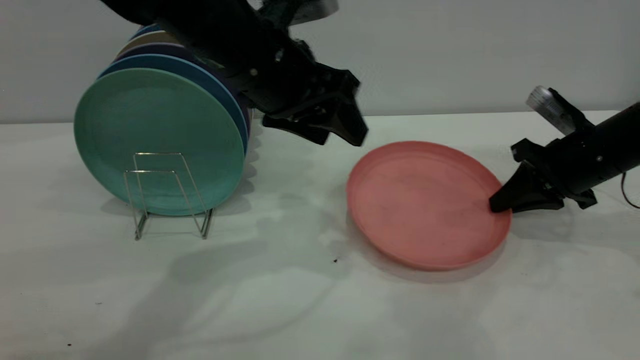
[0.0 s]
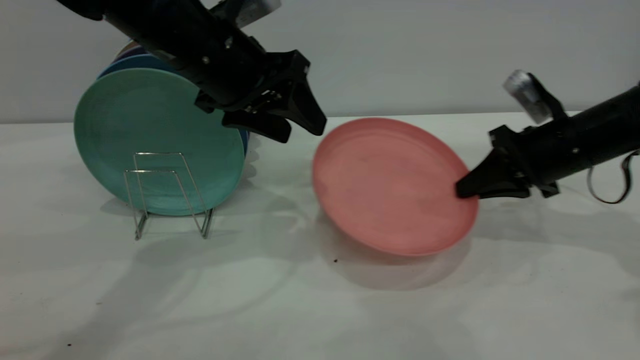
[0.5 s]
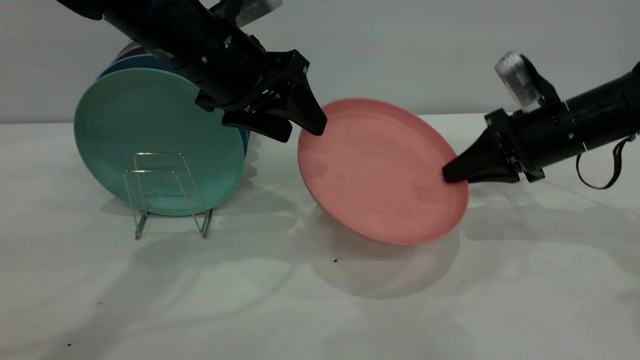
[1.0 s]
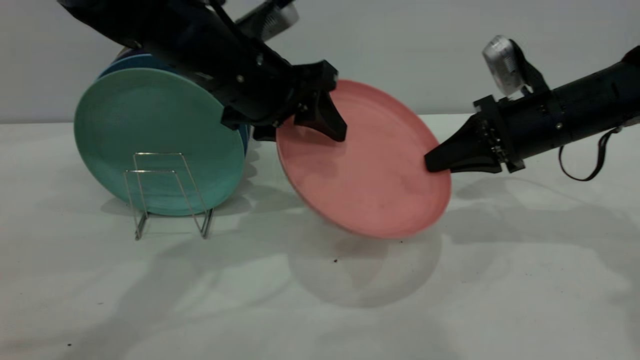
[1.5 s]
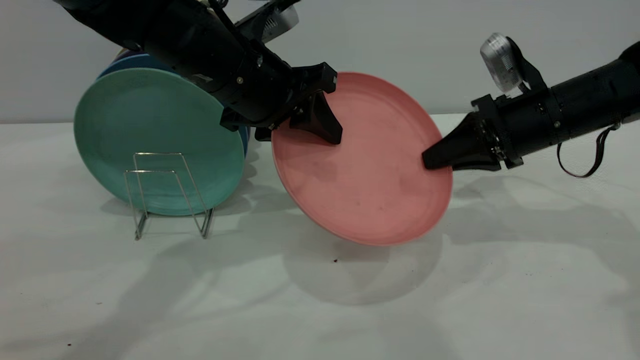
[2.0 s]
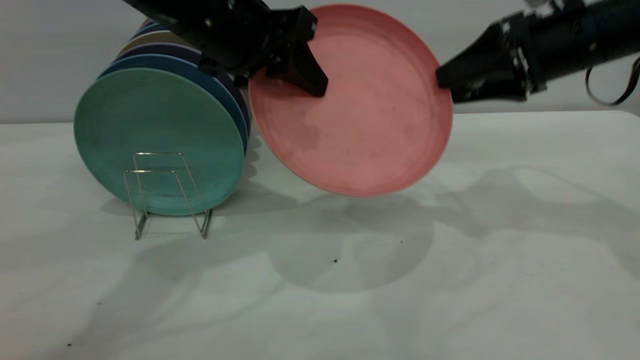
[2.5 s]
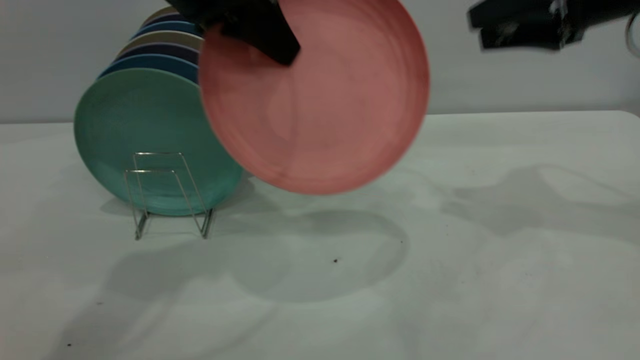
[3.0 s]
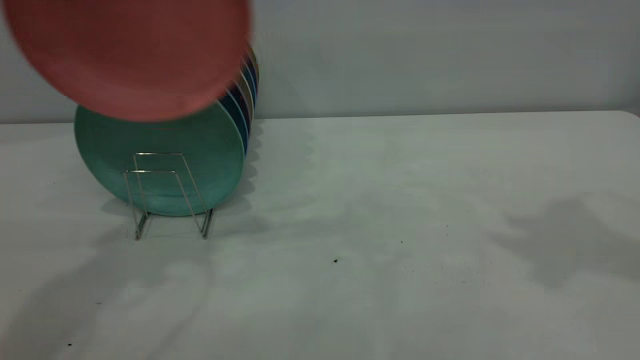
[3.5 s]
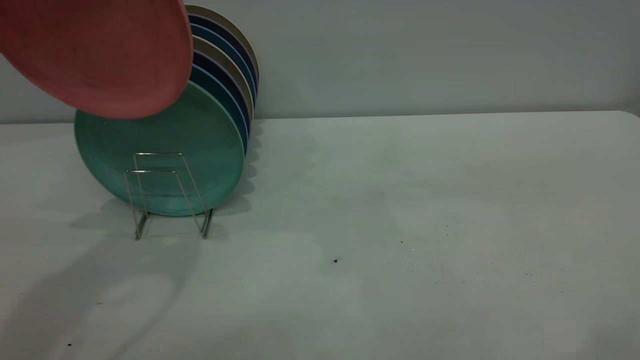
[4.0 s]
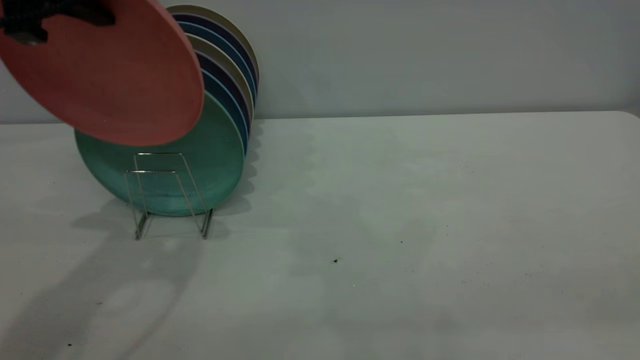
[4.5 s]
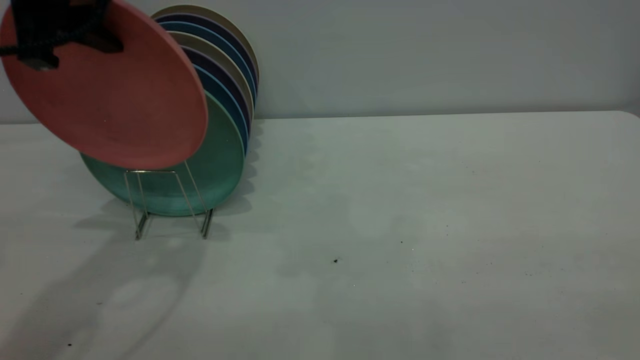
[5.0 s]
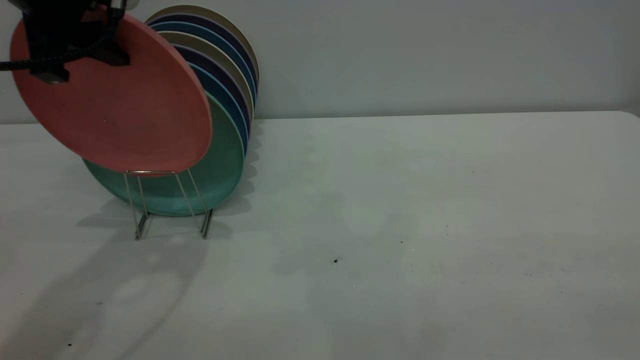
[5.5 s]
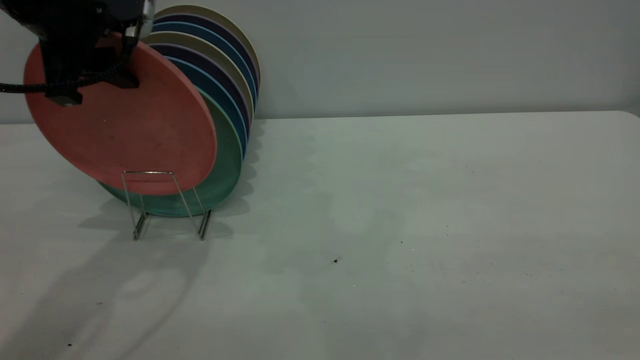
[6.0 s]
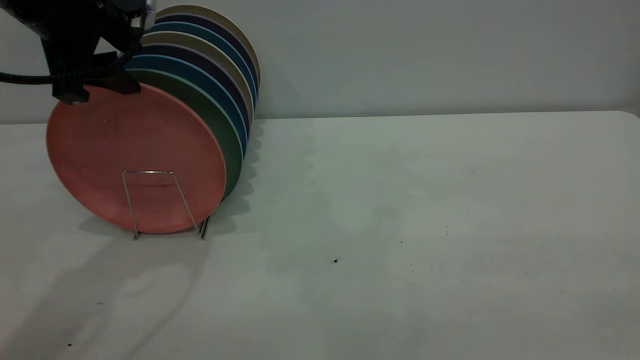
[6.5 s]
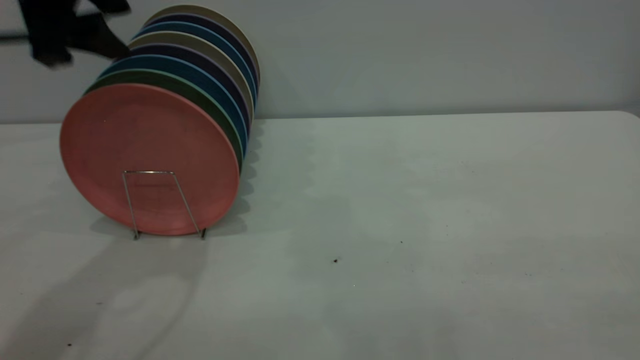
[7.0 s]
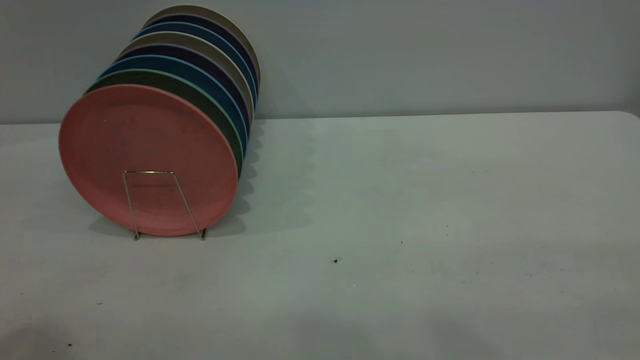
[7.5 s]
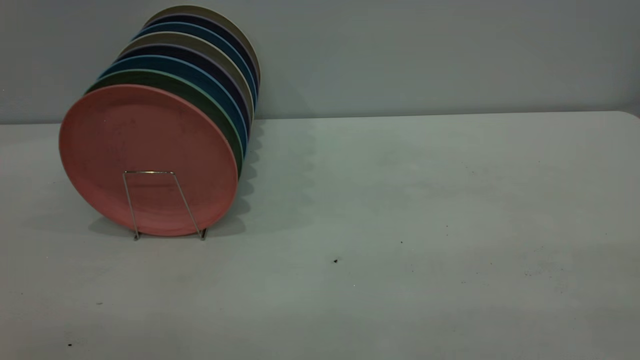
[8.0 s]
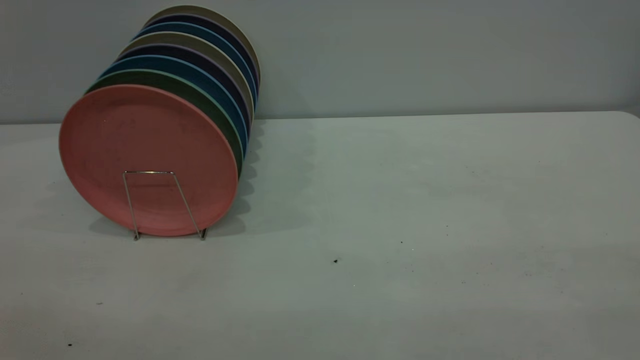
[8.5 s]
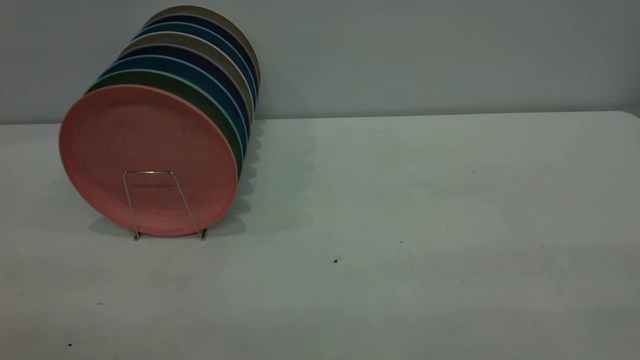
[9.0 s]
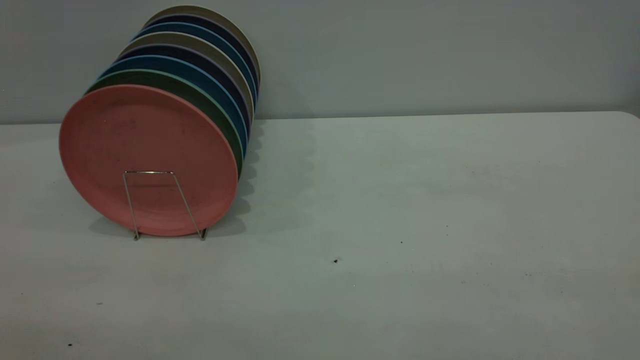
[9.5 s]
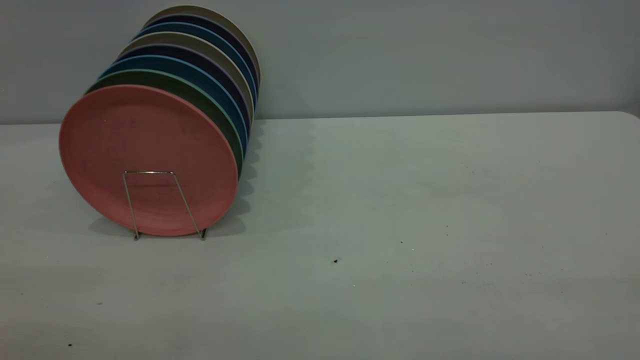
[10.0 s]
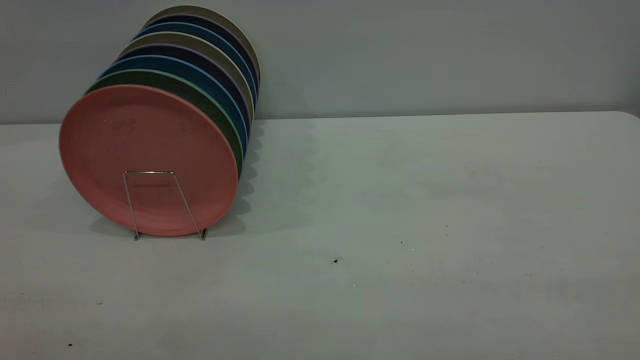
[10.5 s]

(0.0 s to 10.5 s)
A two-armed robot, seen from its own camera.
Task of the whole recording: the right gripper grasp the pink plate, the right gripper pass the pink plate to the left gripper, and the left gripper place the pink plate on the plate rack.
Step, 0.5 s - 2.5 s: Pass the plate from the right gripper to the left gripper.
Step, 3.0 s - 7.0 s: Place the plate on the shelf.
0.0 s - 2.0 s: The right gripper goes some 5 cm to the left. Meanwhile the left gripper closes up.
2.0 s - 4.0 s: The right gripper heads upward and backward, covering roughly 40 cm, and opens and closes again; the left gripper goes roughly 25 cm upward and to the left.
4.0 s - 6.5 s: The left gripper travels downward by roughly 10 cm, and opens.
6.5 s - 8.5 s: The left gripper heads backward, covering roughly 35 cm.

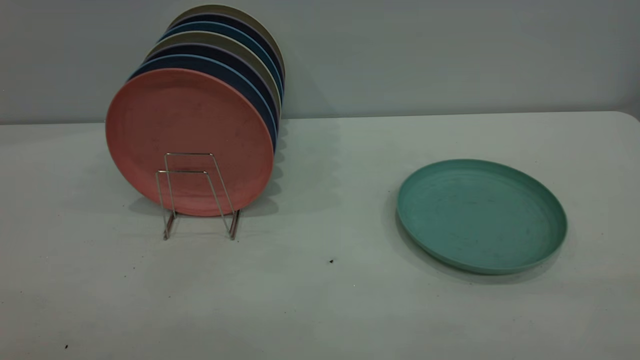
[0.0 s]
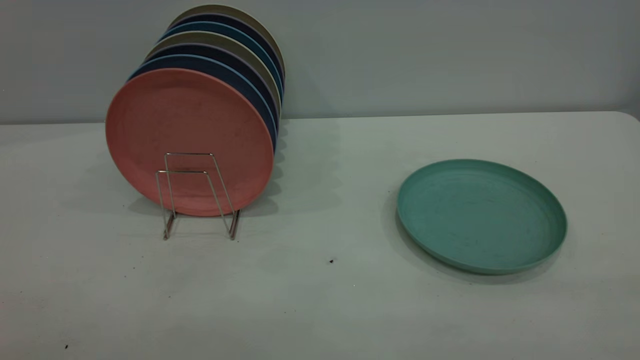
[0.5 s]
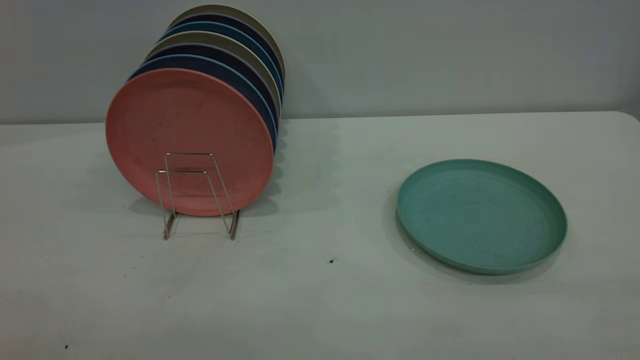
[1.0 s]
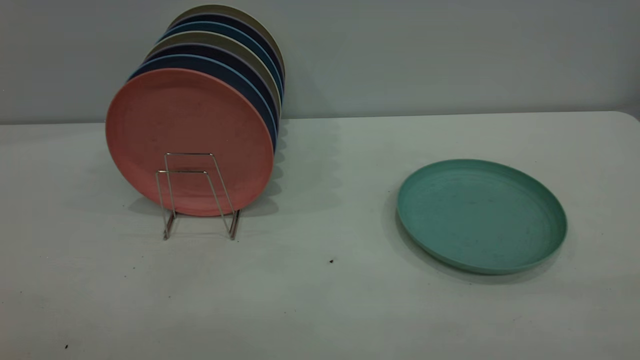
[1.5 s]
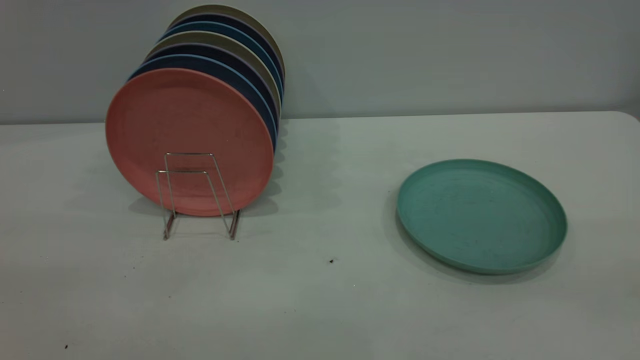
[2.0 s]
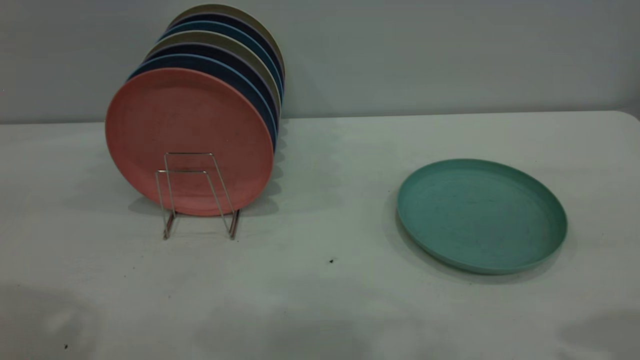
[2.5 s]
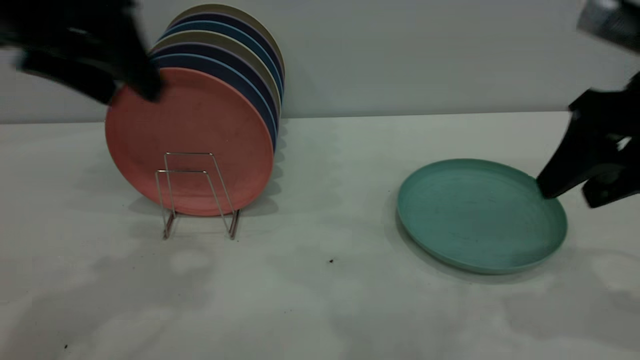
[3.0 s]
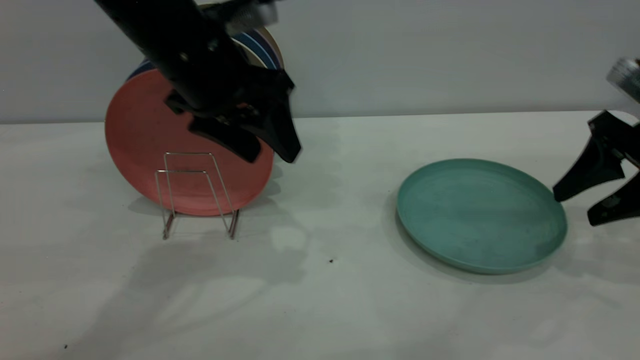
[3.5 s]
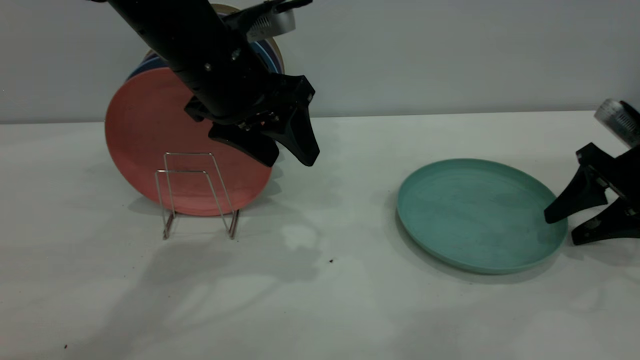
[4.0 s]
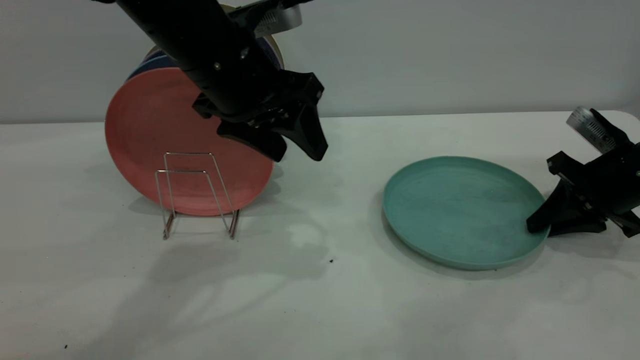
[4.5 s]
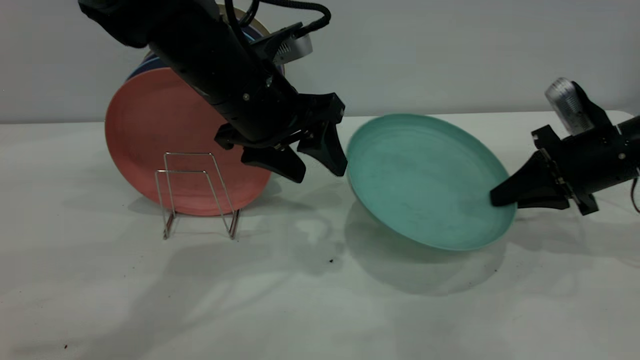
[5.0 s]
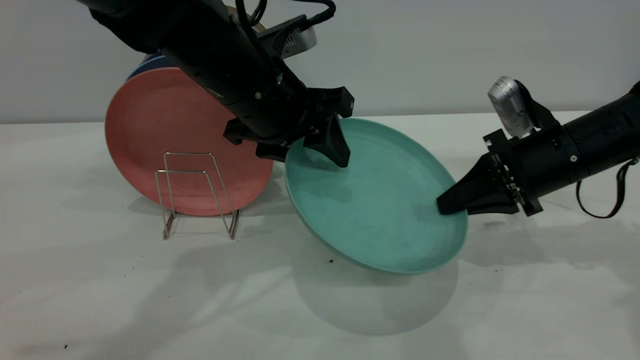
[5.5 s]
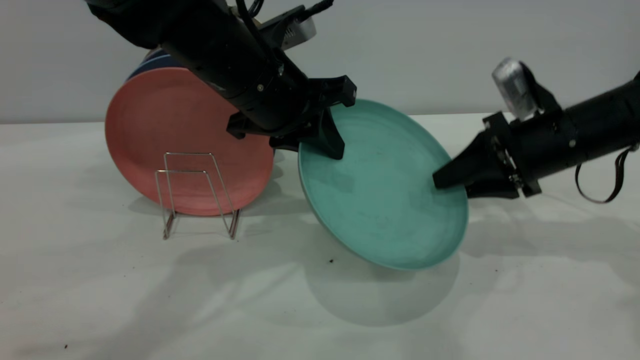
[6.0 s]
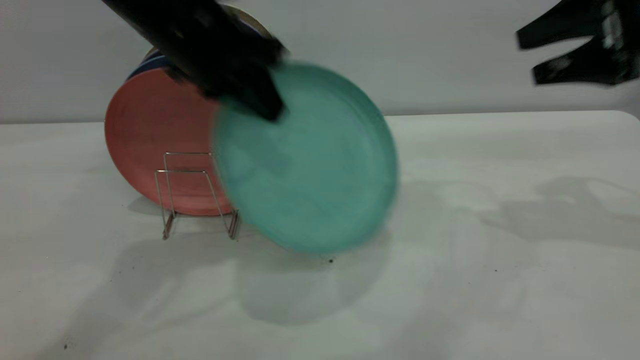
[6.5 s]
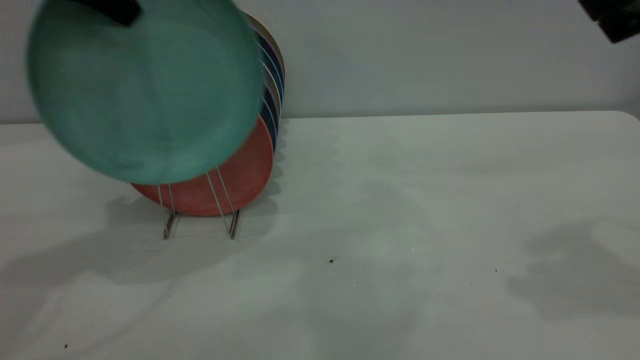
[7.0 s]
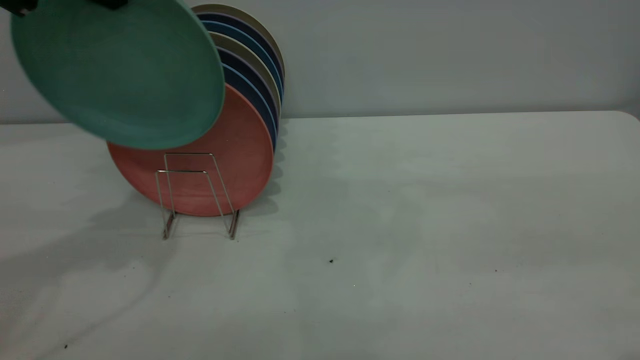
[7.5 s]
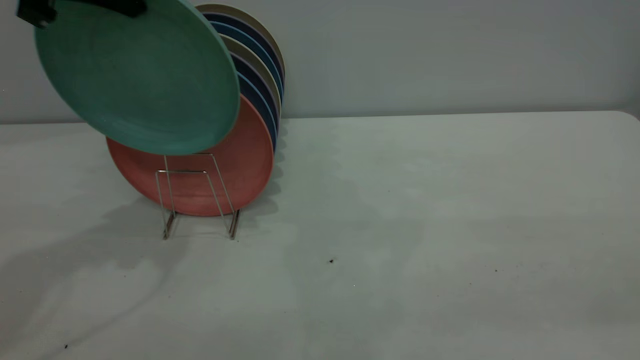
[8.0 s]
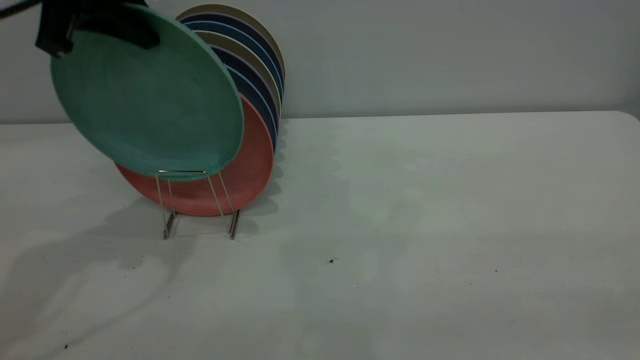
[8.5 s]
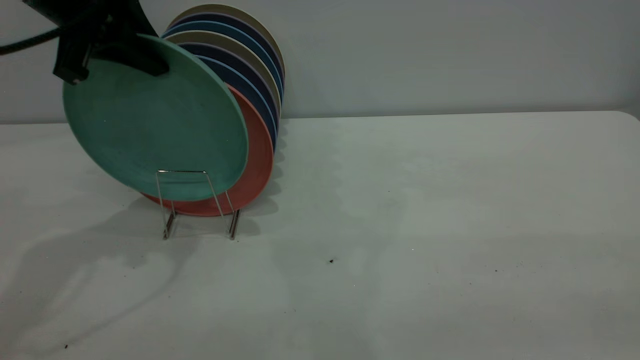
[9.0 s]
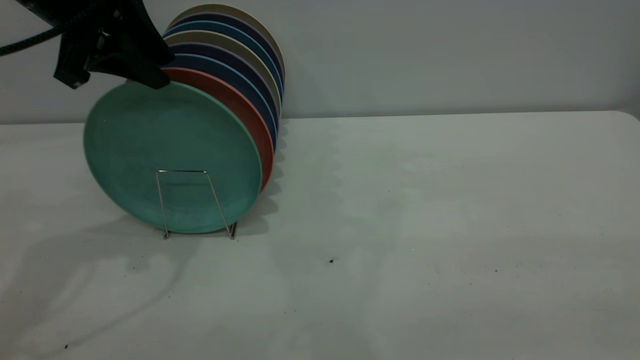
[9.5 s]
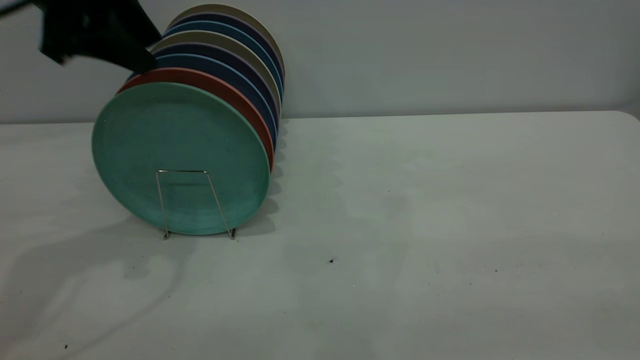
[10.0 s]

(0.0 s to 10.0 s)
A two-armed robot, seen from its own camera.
Task of the whole recording: the right gripper grasp the green plate, the right gripper pass the green plate to the left gripper, and the left gripper place the green plate on the plate rack.
Step, 0.0 s - 4.5 s: Pick up the plate with the right gripper.
Step, 5.0 s - 6.0 s: Pass the plate from the right gripper to the left gripper.
Step, 6.5 s - 9.5 s: Place the plate on the shelf.
2.0 s - 4.0 s: The right gripper goes some 40 cm forward and downward; the left gripper goes about 40 cm forward, to the right and downward.
4.0 s - 6.0 s: The left gripper closes up, while the right gripper travels to the left by roughly 10 cm, and closes and opens again.
6.0 s - 8.0 s: The left gripper goes roughly 20 cm to the left and upward. The right gripper shifts approximately 40 cm backward and upward.
8.0 s - 10.0 s: The left gripper opens.
